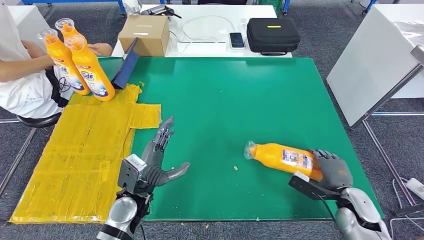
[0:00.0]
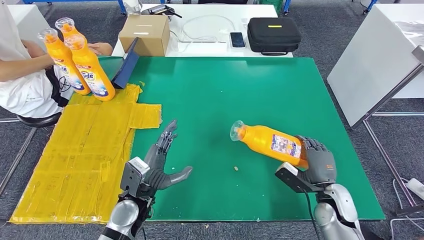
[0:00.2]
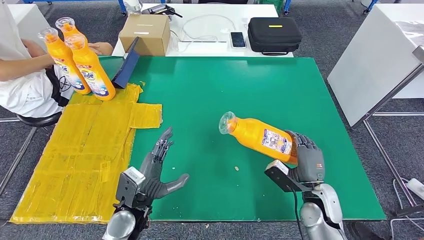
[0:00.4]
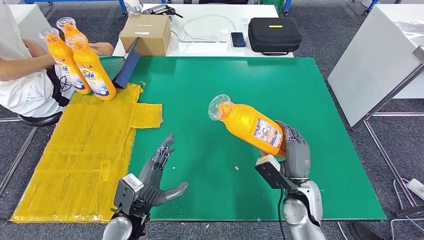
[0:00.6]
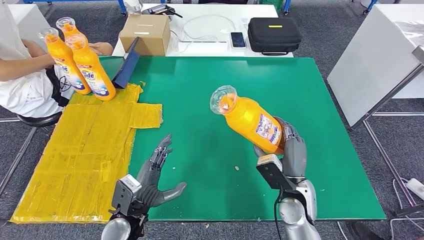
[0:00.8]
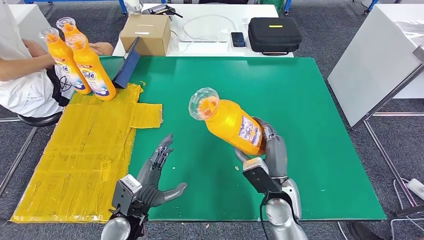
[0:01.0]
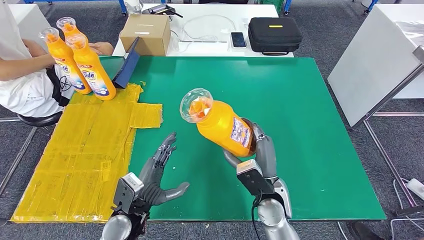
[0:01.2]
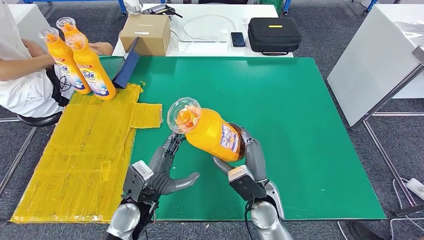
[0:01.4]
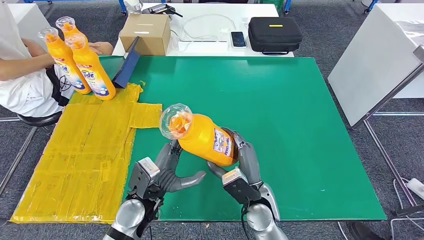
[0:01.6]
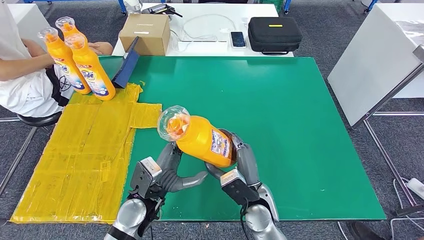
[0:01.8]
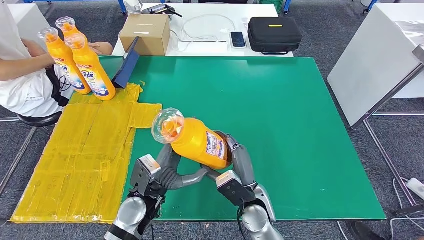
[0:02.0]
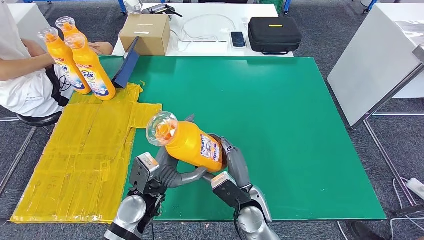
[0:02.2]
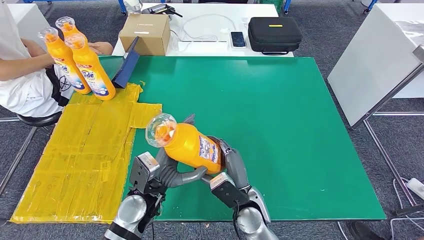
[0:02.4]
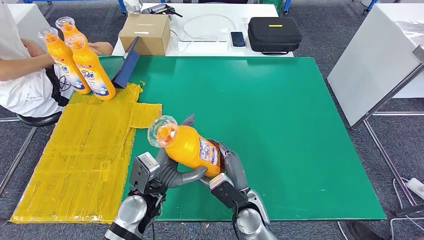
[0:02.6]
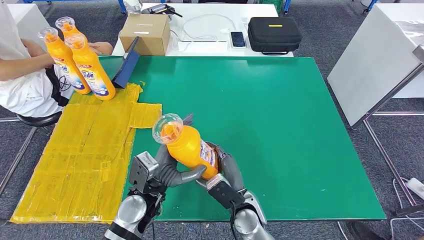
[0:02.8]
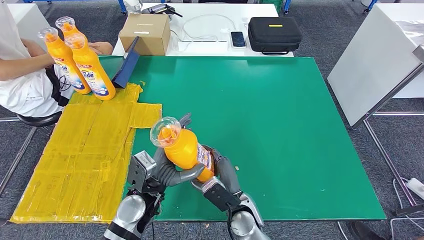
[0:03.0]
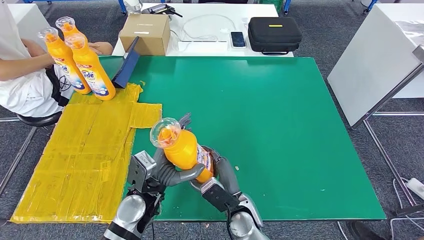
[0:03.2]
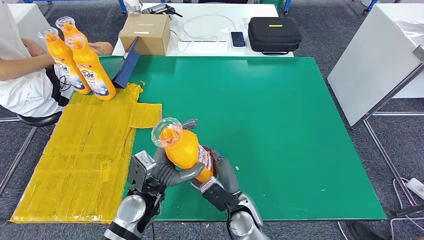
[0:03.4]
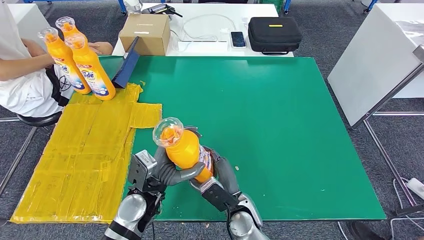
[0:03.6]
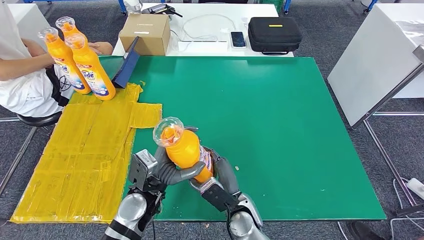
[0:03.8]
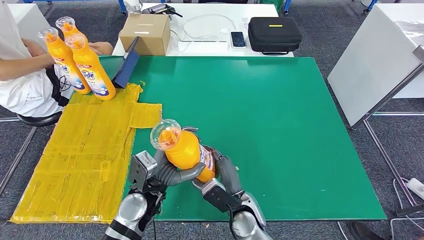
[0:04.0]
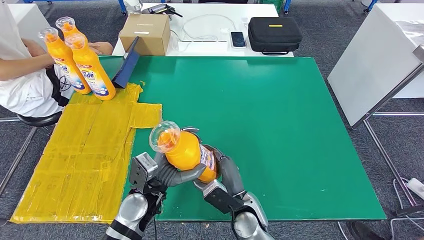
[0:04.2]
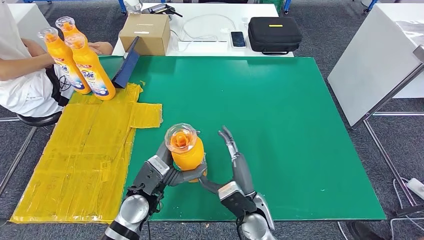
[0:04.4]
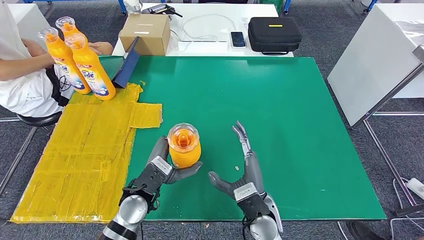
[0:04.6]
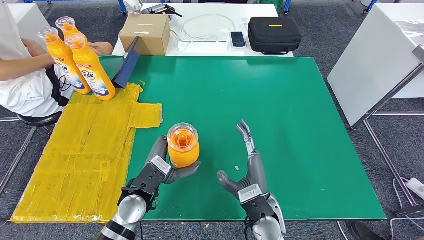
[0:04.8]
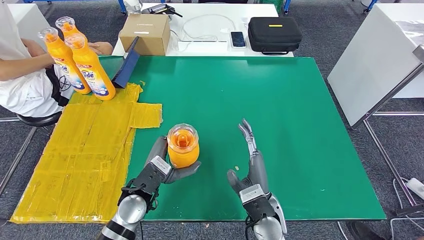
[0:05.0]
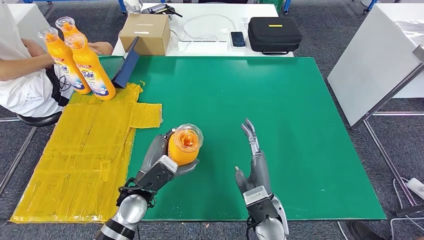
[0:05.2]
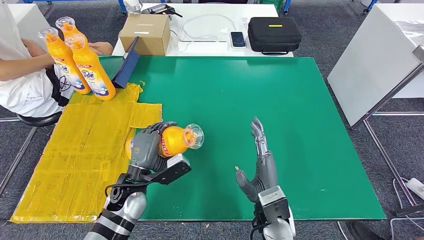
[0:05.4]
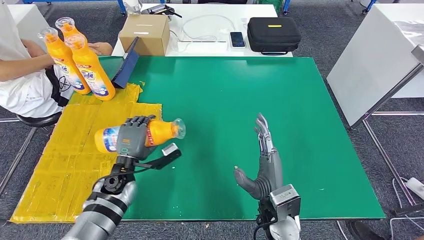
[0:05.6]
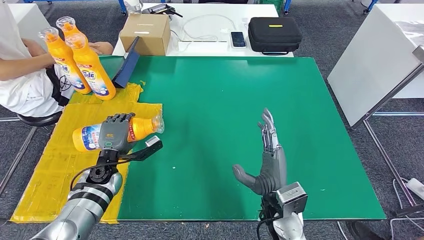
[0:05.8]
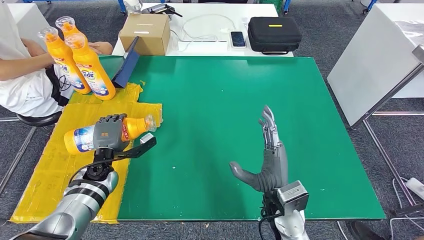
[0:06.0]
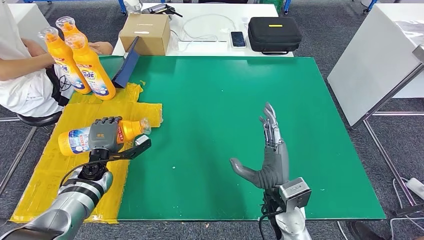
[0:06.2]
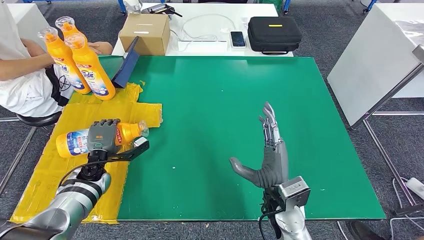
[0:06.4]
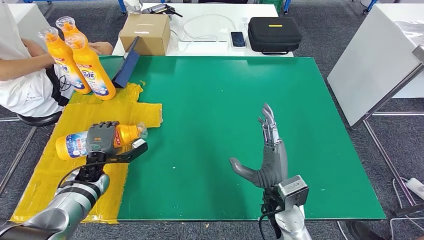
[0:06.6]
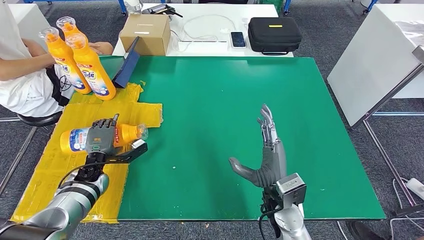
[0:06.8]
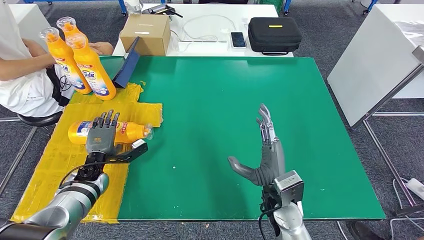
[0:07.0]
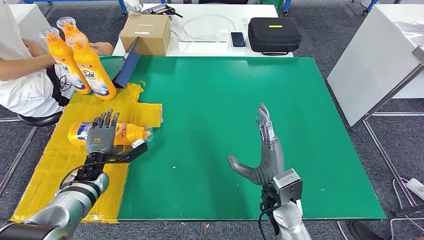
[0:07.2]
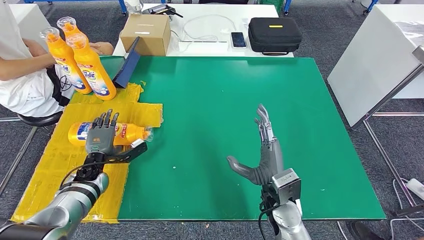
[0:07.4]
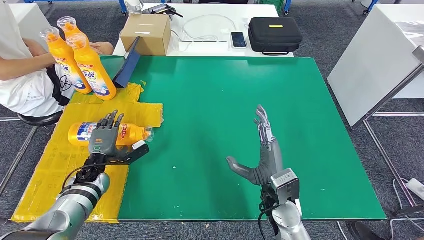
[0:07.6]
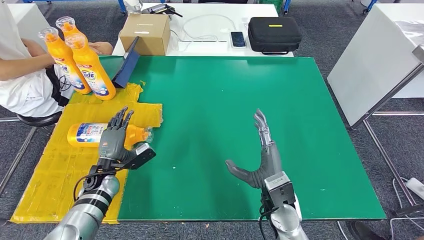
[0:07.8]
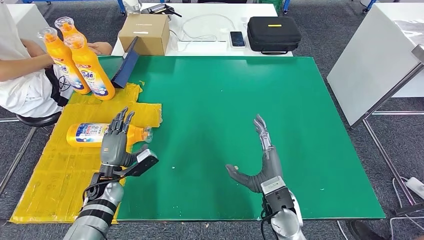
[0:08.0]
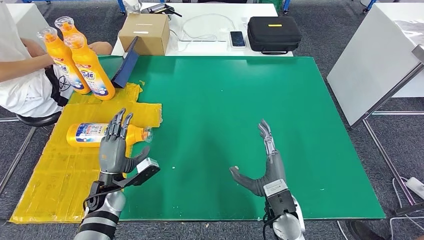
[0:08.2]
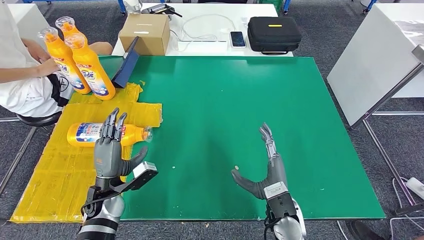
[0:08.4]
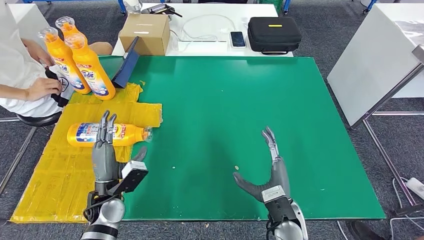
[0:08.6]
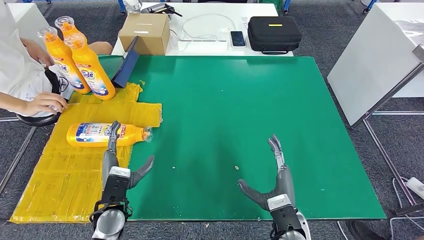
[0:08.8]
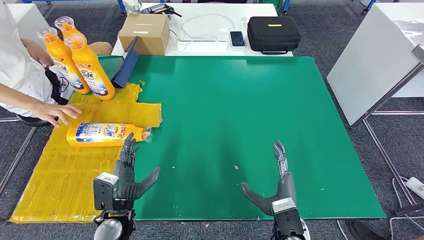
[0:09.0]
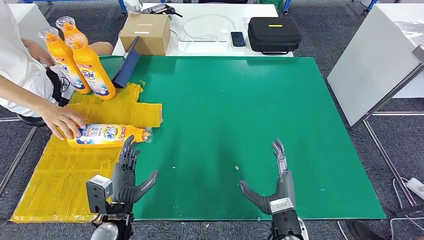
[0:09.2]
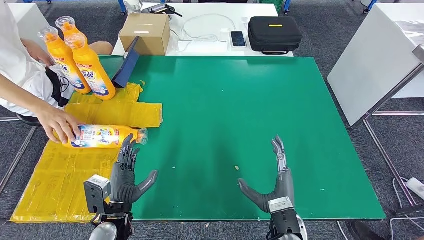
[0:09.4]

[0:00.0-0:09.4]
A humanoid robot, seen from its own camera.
Step, 0:00.0 to 0:02.8: Pick up the fast-moving consumer goods bottle from the table.
Step, 0:03.0 to 0:09.4: Flip the fast-moving consumer goods bottle to the front side.
0:01.6 to 0:03.2: The right hand changes place by roughly 5 cm.
0:03.2 to 0:04.8: The right hand is displaced upward by some 5 cm.
0:04.8 to 0:06.2: The left hand is displaced to the left and forward by approximately 20 cm, while the right hand changes place by approximately 5 cm.
0:07.8 to 0:09.4: The right hand travels backward by some 5 cm, while the left hand heads backward and to the right, covering some 15 cm.
